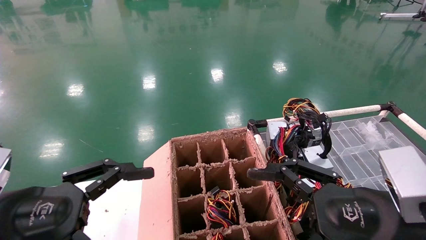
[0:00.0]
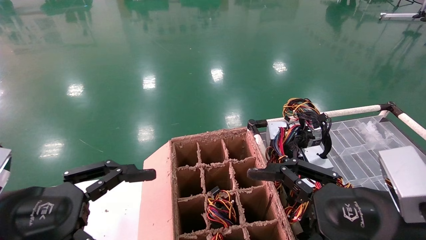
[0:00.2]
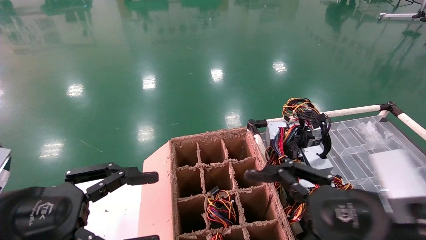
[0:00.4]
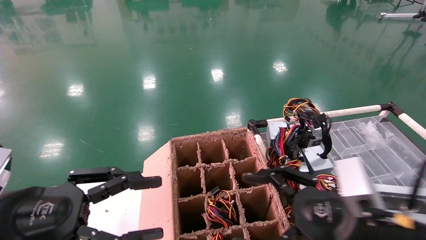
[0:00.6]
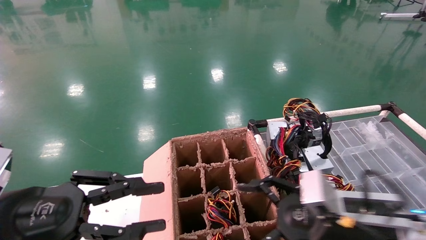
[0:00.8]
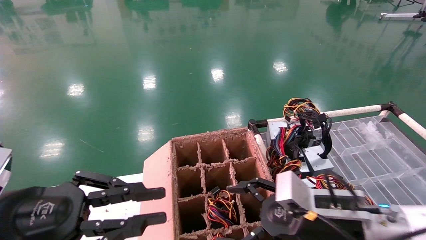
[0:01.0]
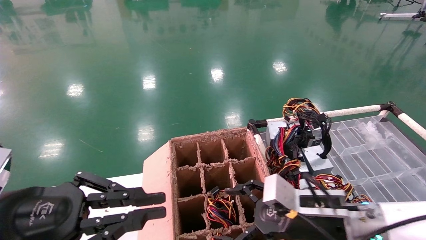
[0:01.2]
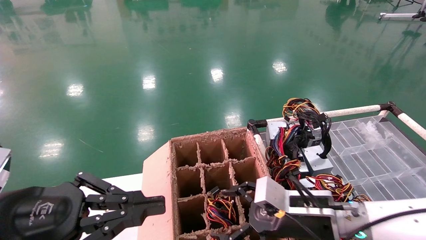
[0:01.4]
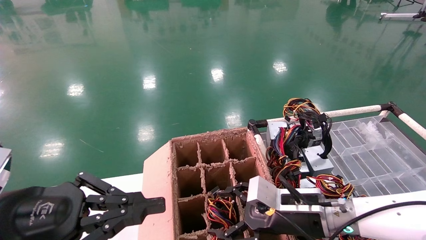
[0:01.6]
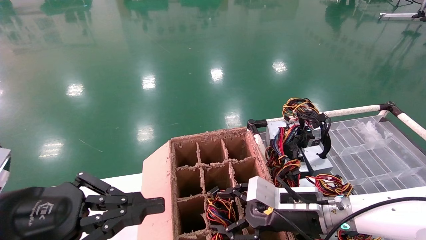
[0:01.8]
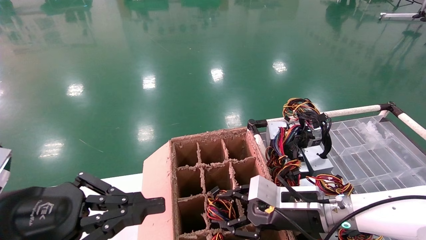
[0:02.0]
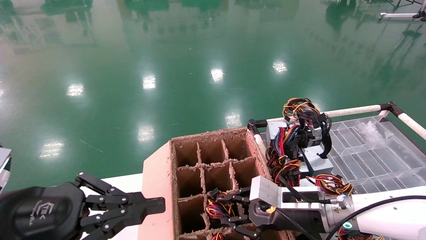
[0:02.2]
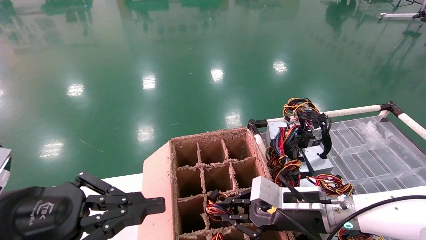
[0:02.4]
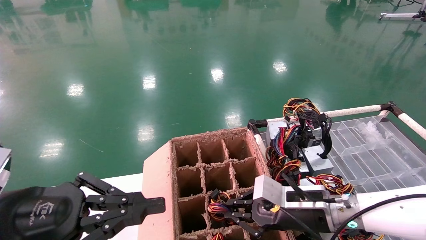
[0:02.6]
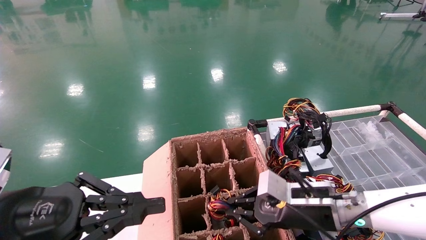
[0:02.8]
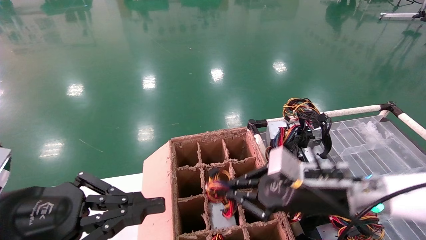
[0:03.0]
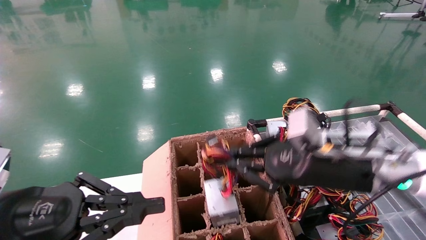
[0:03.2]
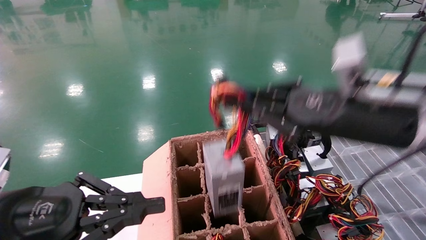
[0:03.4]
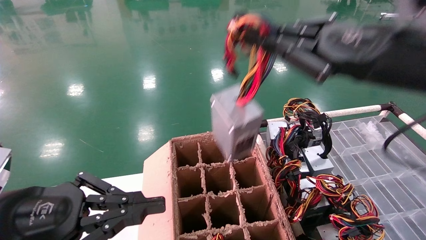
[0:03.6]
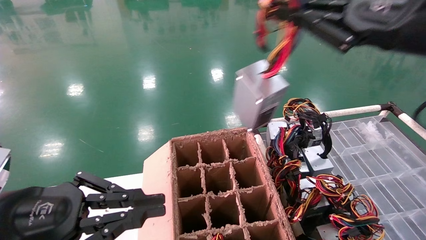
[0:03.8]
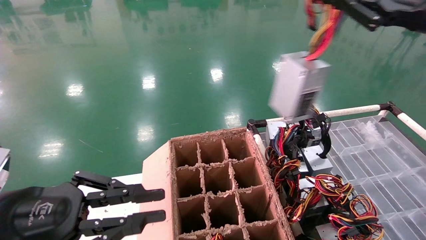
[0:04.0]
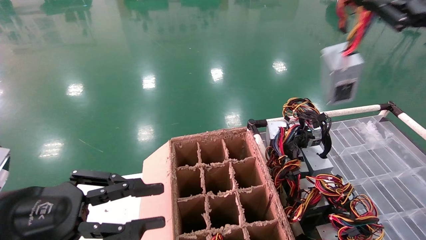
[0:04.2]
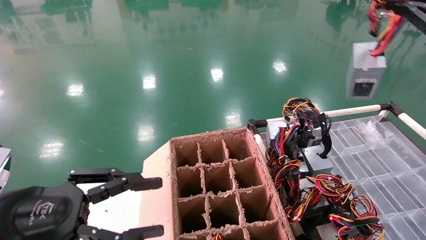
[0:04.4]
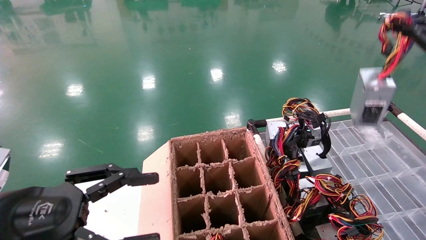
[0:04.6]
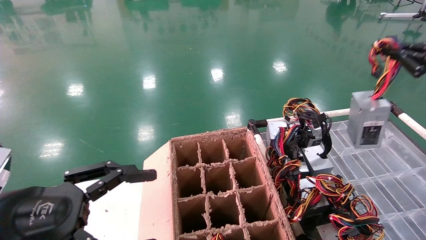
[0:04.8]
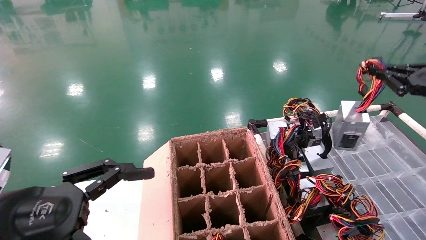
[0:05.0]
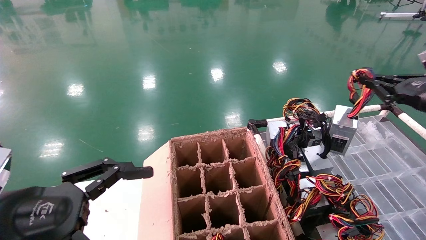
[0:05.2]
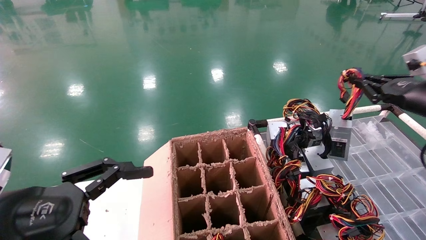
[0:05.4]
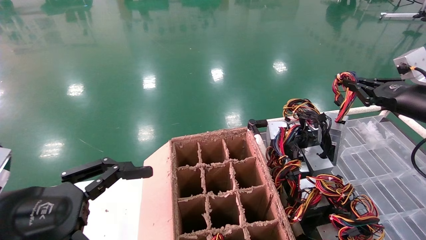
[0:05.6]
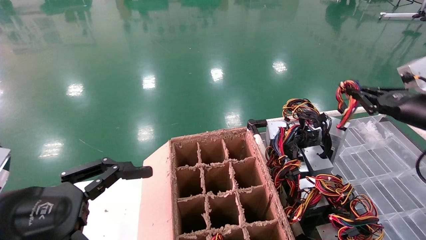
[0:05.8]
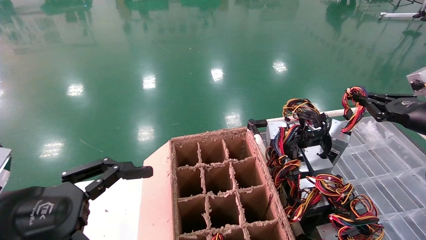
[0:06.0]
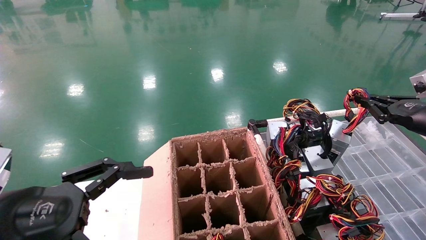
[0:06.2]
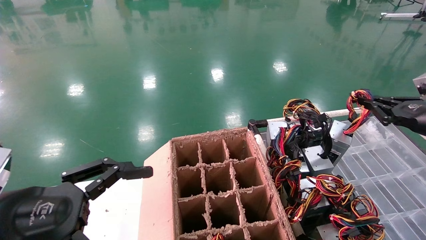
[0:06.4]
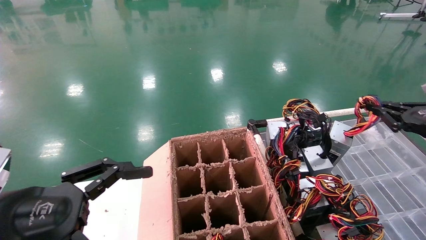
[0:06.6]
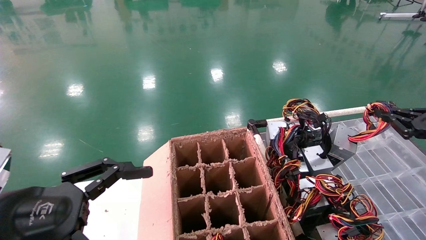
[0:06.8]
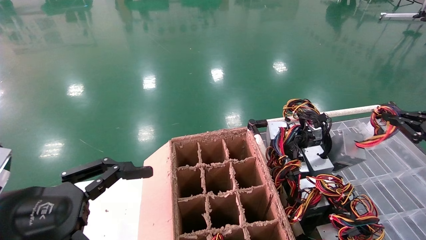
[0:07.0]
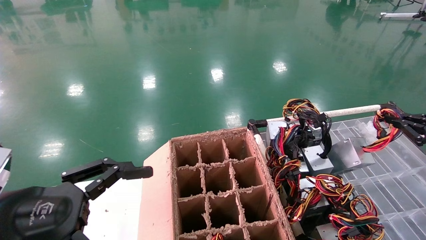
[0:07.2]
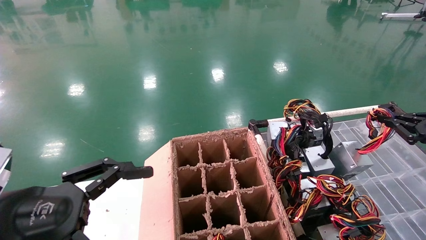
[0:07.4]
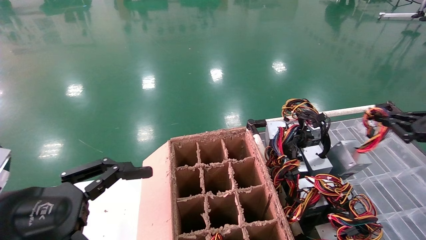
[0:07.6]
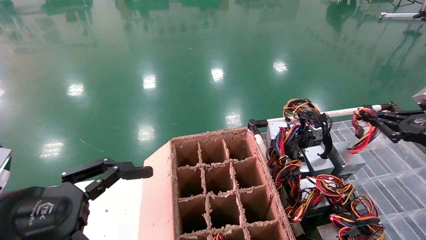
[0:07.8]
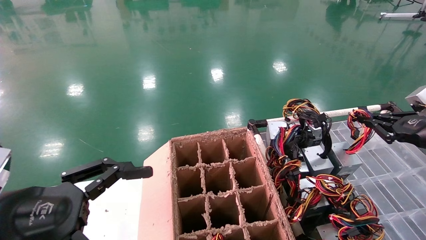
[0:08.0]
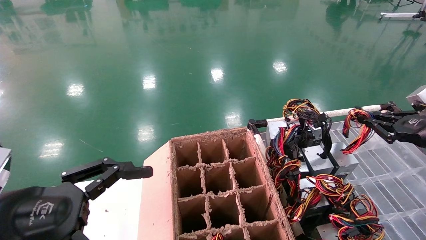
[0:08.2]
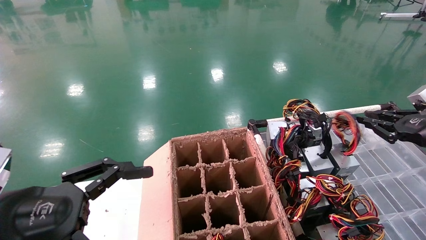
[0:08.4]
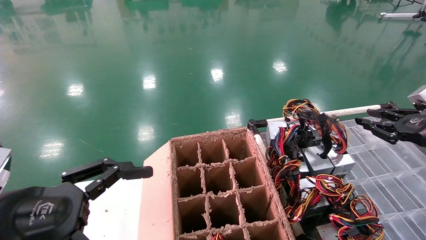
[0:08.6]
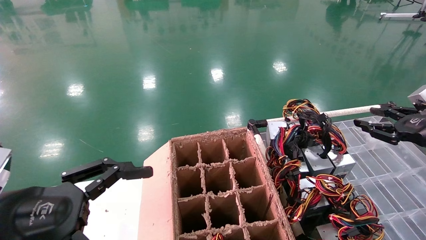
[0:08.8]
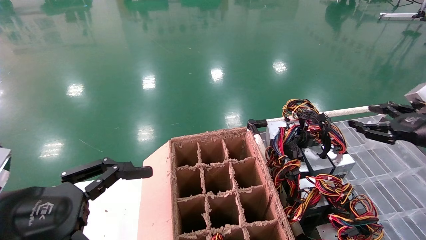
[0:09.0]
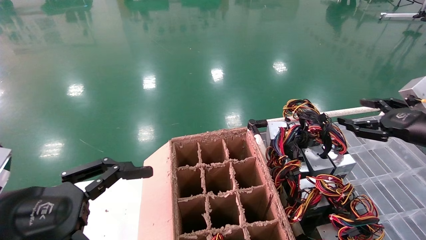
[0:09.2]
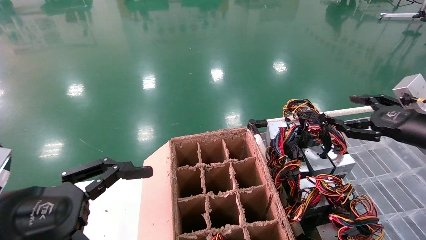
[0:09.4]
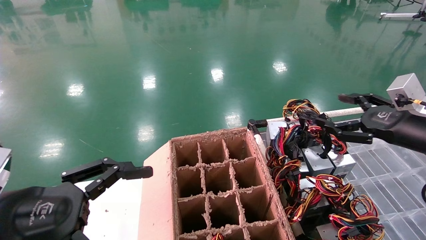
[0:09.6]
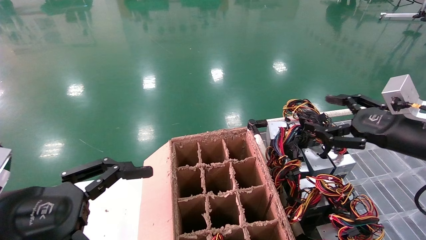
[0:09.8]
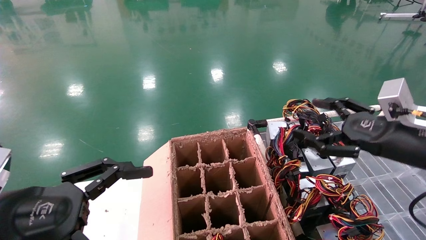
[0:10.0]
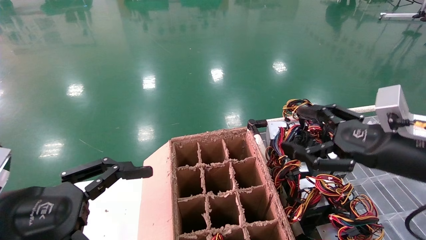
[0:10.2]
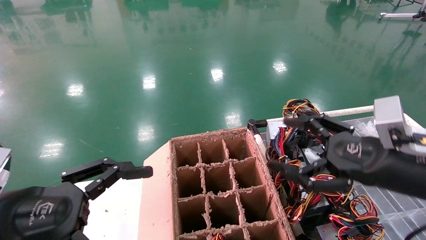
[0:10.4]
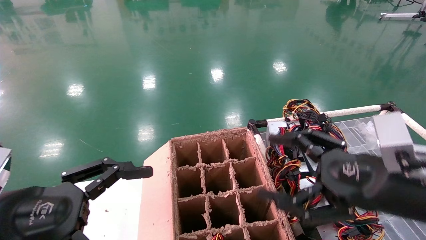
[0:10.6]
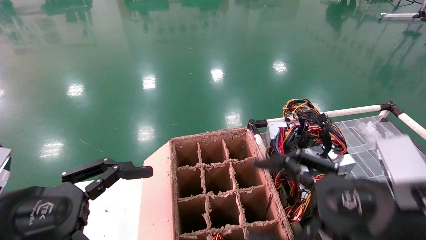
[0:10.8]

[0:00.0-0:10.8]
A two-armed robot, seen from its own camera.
Step, 0:01.4 to 0:02.6: Grab and lift the power supply from the large box.
Step, 0:02.8 to 0:08.4: Place the power supply on the operating table.
0:00.0 to 0:01.6: The left gripper closes its fingers, while the right gripper shifts some 20 cm forward and downward.
0:01.6 to 0:03.0: The right gripper heads upward, covering approximately 5 cm, and closes its fingers.
0:03.0 to 0:04.6: The right gripper travels to the right and upward by roughly 35 cm. The left gripper opens its fingers.
0:04.6 to 0:06.2: The left gripper opens its fingers, while the right gripper is displaced downward and forward by about 15 cm.
0:06.2 to 0:07.8: The grippers move only a little.
0:07.8 to 0:09.2: The right gripper opens.
0:09.2 to 0:10.8: The right gripper moves to the left and backward, about 25 cm.
